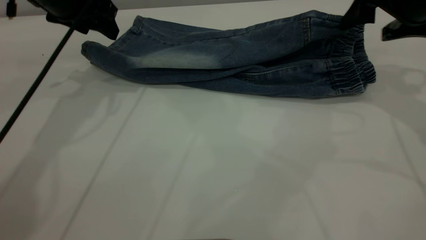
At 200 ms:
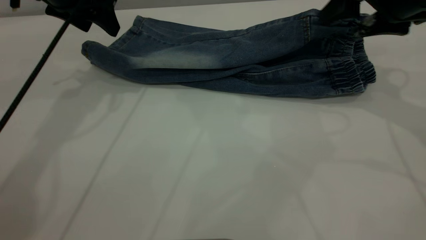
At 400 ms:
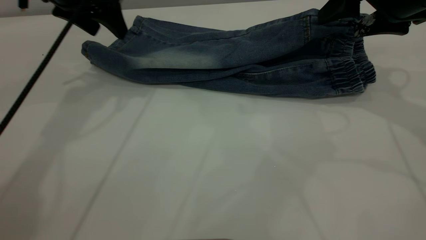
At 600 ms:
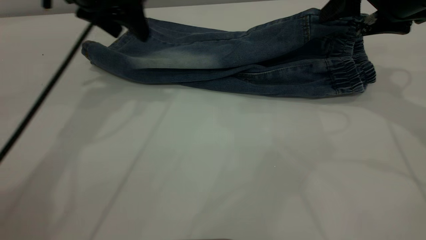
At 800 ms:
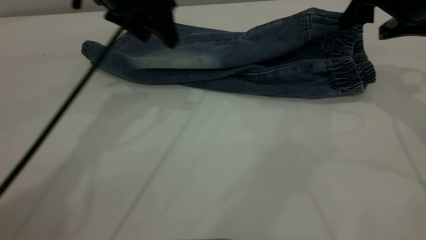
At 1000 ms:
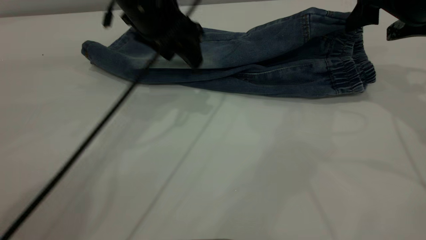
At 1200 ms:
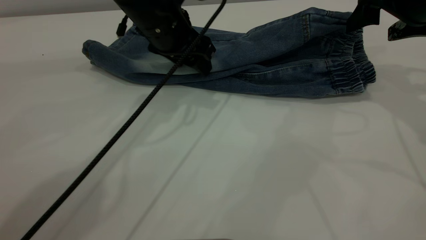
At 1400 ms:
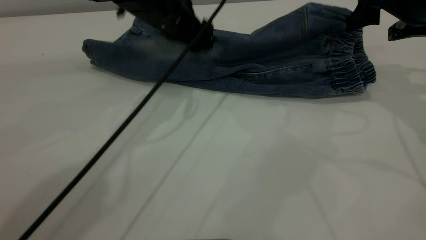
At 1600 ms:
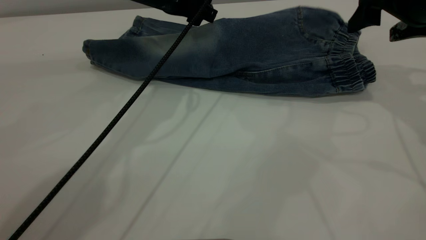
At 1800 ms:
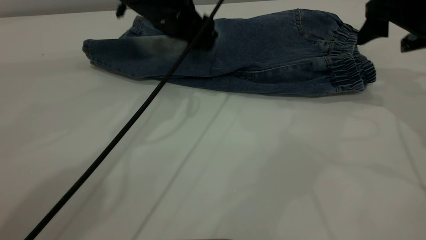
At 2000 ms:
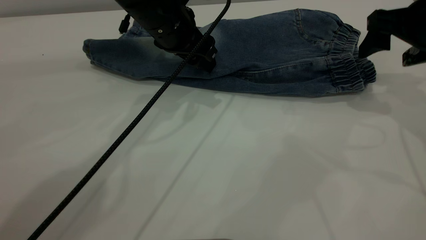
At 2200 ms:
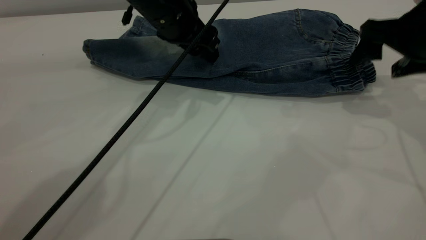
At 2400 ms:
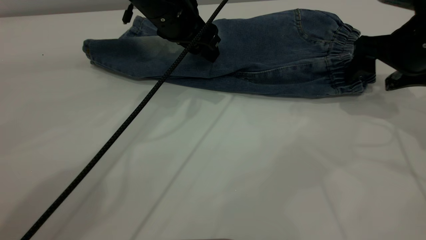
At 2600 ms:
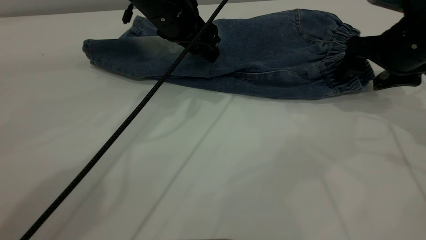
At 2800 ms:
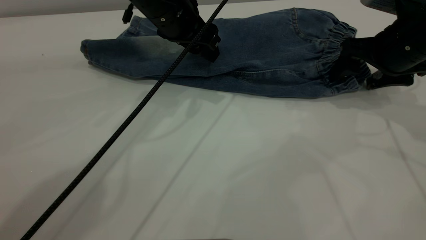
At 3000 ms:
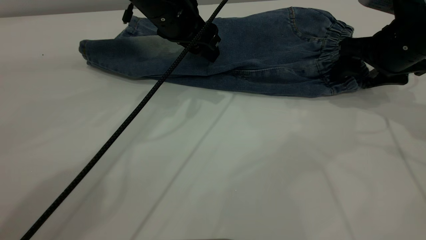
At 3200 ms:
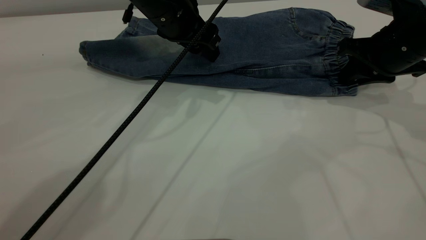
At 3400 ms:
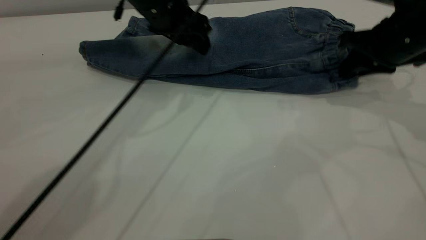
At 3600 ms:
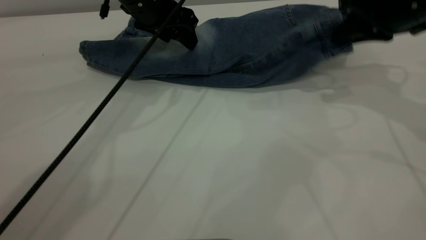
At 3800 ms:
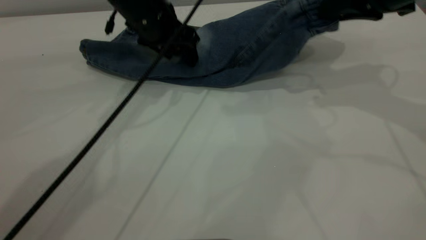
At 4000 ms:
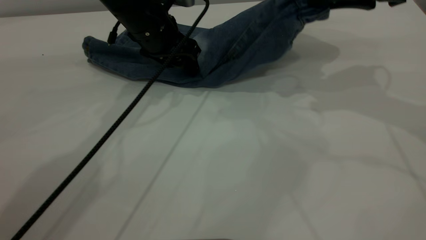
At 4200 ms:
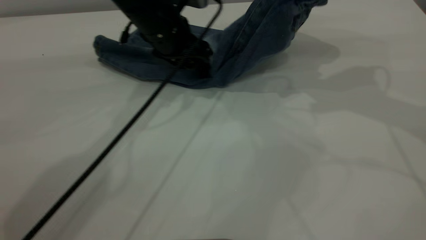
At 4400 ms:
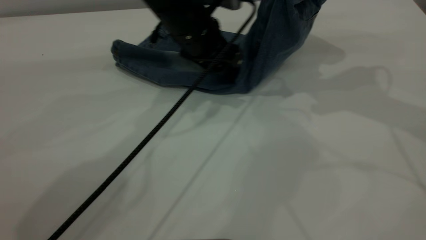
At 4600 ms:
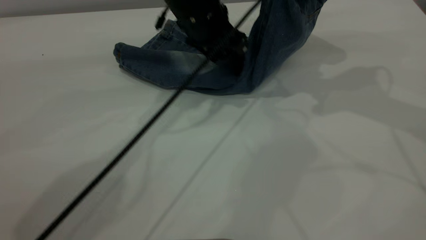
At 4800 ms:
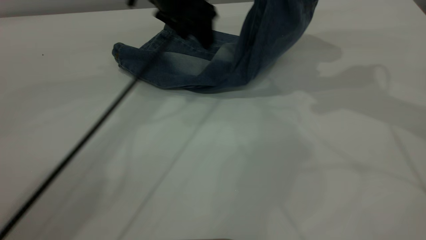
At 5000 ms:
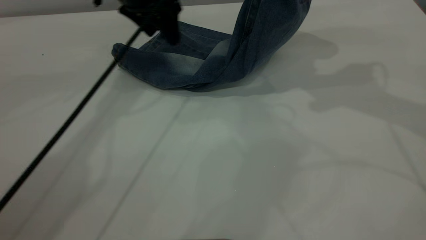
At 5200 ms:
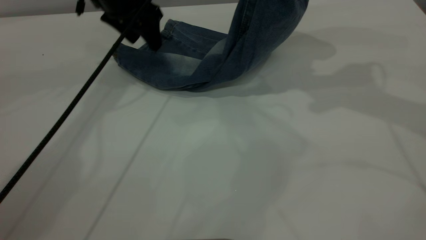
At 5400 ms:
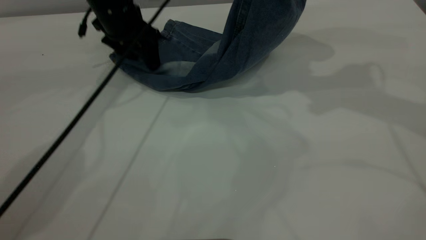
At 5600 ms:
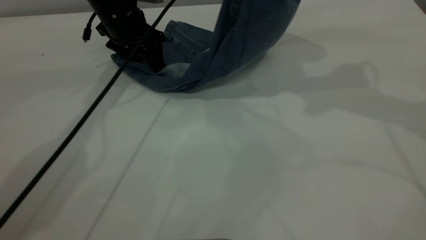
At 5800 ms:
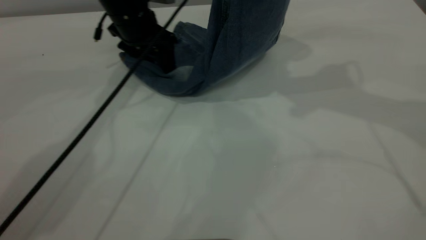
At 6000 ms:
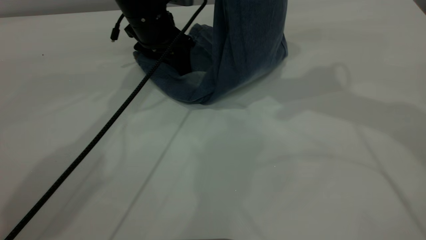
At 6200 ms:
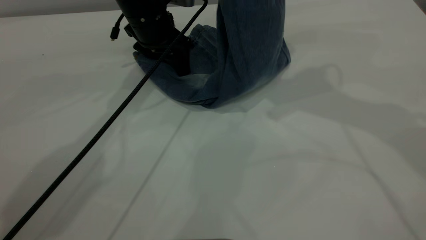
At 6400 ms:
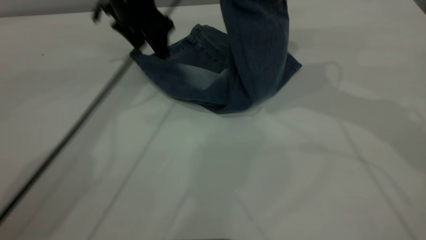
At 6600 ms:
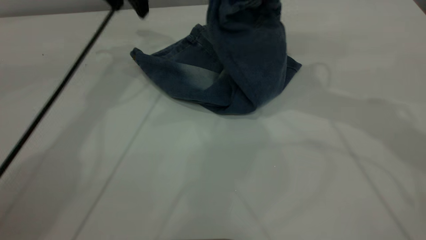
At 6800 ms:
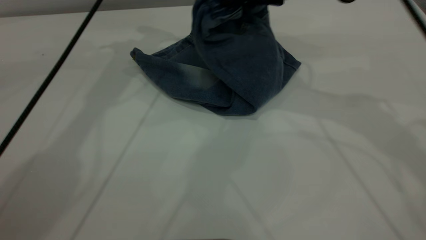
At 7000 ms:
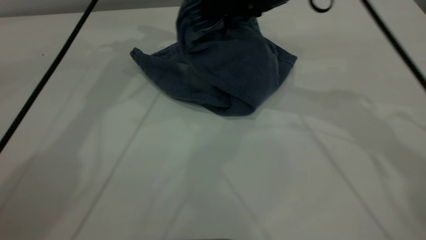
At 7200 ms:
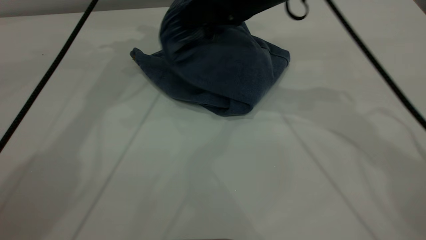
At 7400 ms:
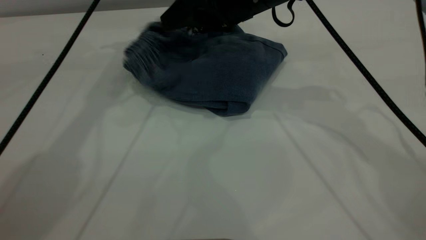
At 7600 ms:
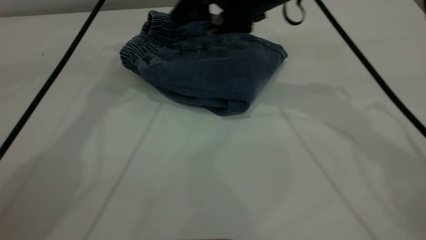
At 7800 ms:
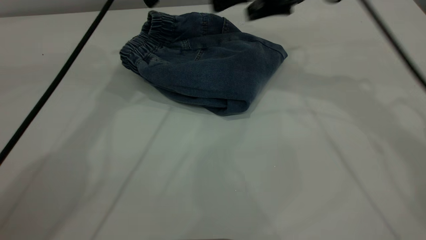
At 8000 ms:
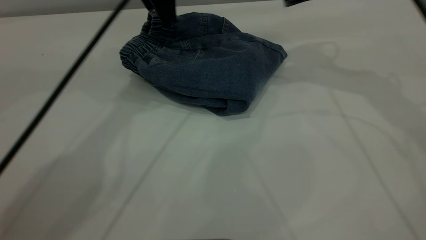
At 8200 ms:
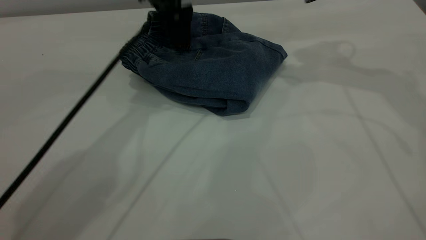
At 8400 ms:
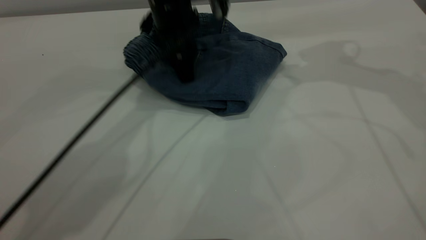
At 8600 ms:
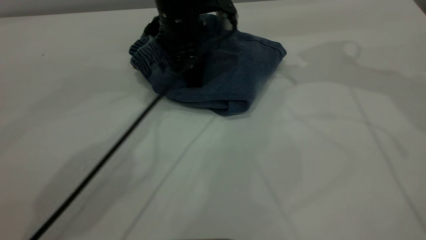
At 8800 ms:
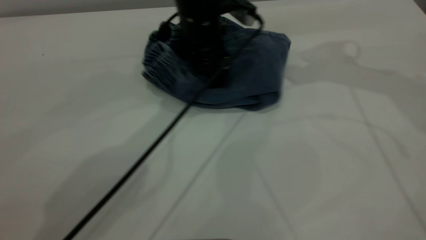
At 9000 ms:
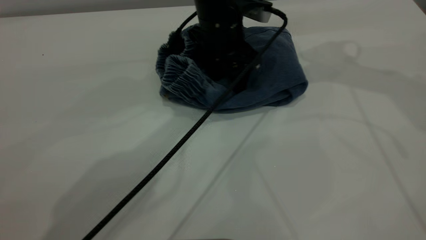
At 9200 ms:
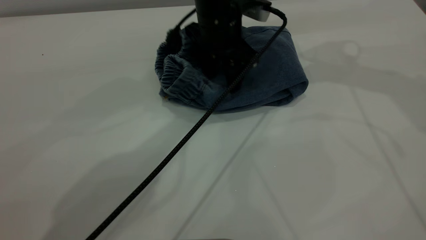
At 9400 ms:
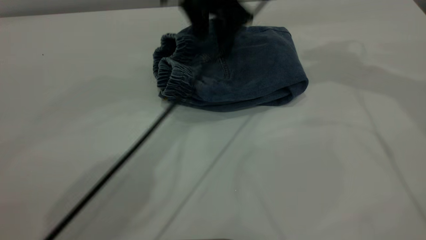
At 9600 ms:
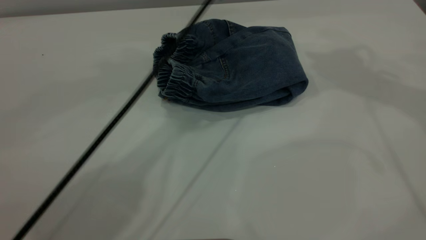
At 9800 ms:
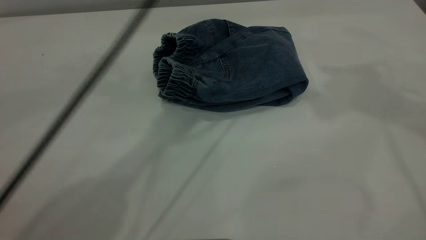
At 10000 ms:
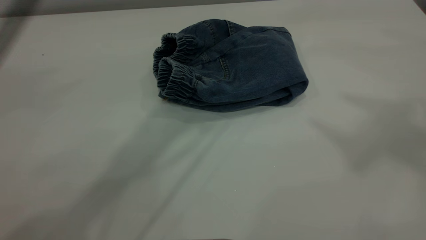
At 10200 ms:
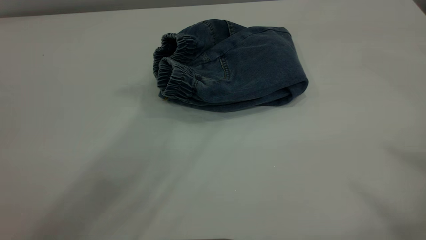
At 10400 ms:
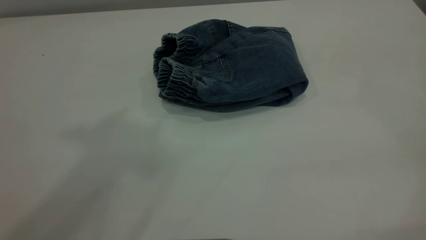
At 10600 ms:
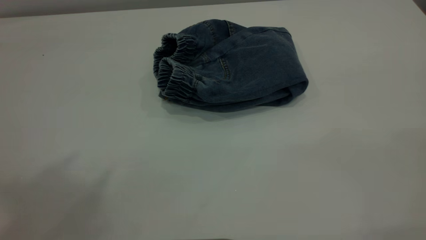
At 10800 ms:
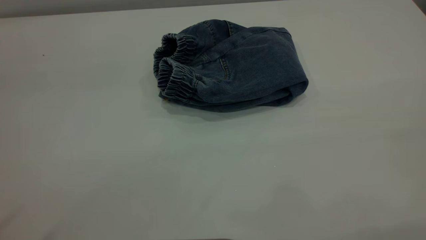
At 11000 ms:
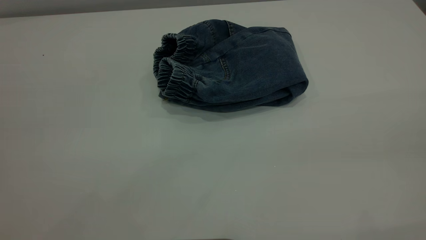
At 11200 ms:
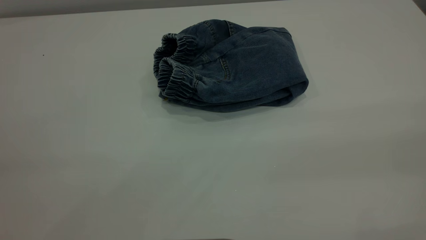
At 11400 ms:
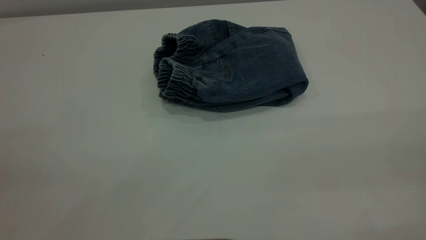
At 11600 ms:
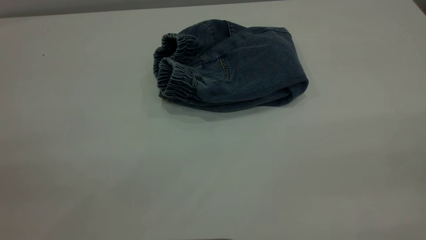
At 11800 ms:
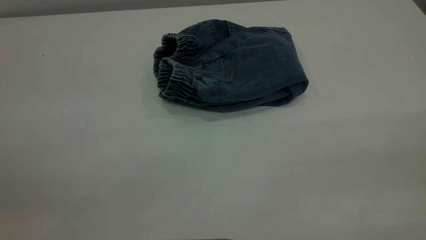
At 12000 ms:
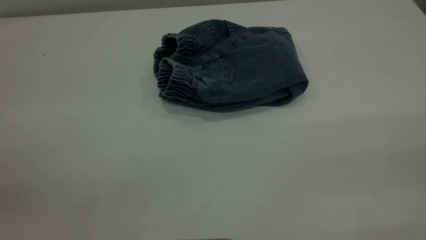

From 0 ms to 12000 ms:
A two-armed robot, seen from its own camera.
Step, from 600 ms to 7600 ms: Fold your pants from right to left.
From 0 ms to 1600 ms: The left gripper goes some 15 cm to the right.
From 1600 ms to 3000 ms: The right gripper goes roughly 5 cm downward.
From 3000 ms to 4400 ms: The right gripper shifts roughly 15 cm upward, and closes.
From 4400 ms to 6000 ms: The left gripper moves to the left, approximately 10 cm. Meanwhile the right gripper moves to the left and upward, some 10 cm.
From 6000 ms to 7600 ms: The right gripper moves downward, to the left and forward, roughly 15 cm, and opens its fingers, while the left gripper heads upward, covering approximately 15 cm.
From 7600 ms to 9000 ms: The right gripper moves to the right and upward, roughly 15 cm. The left gripper goes approximately 20 cm to the right, downward and backward.
From 9000 ms to 10400 ms: The right gripper is displaced backward and upward by approximately 50 cm, while the left gripper shifts approximately 50 cm upward and backward.

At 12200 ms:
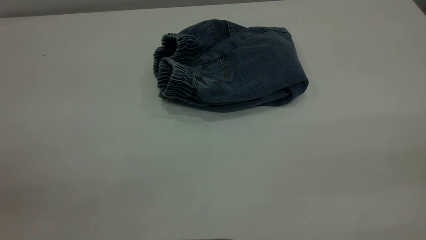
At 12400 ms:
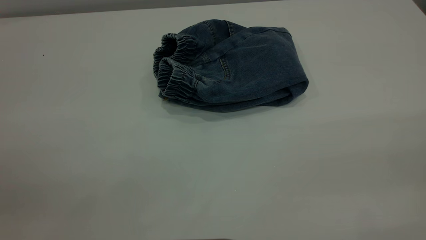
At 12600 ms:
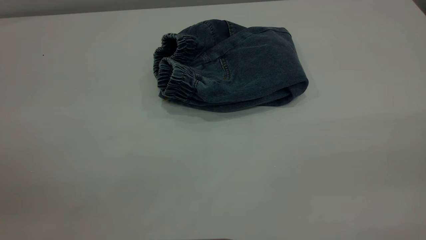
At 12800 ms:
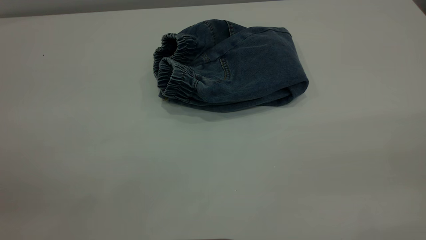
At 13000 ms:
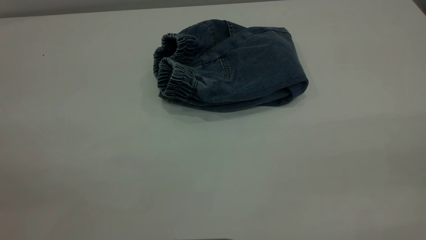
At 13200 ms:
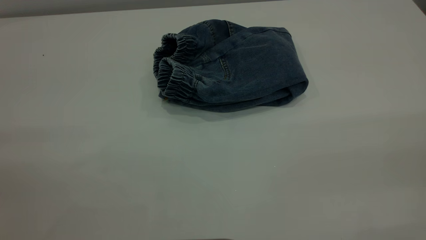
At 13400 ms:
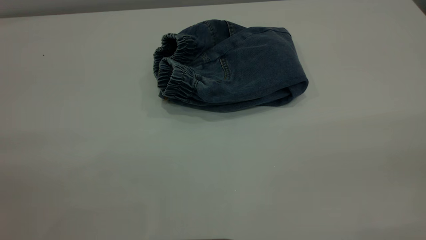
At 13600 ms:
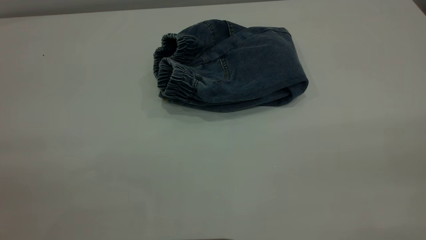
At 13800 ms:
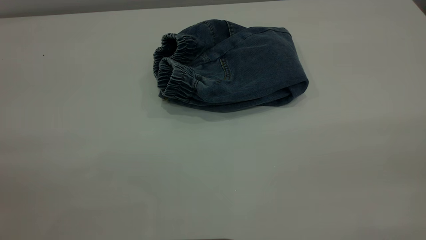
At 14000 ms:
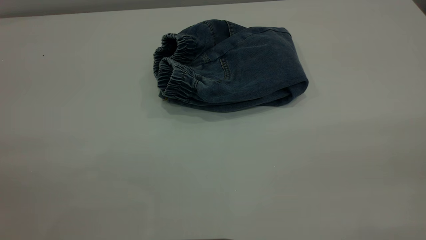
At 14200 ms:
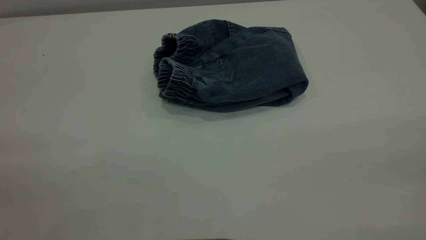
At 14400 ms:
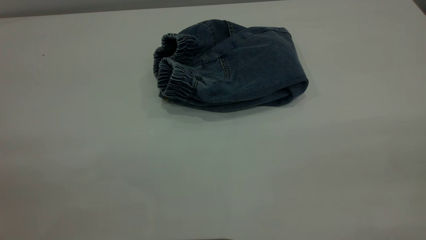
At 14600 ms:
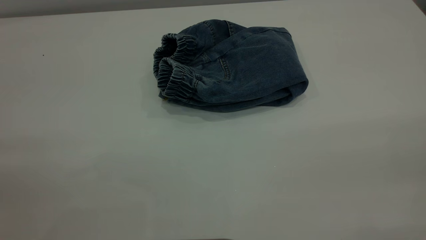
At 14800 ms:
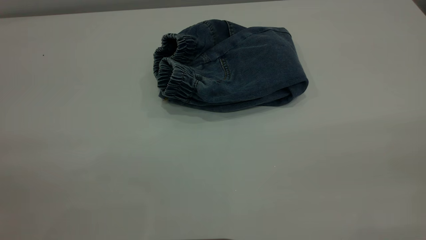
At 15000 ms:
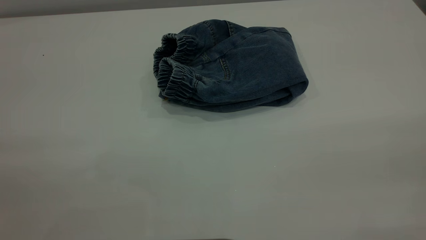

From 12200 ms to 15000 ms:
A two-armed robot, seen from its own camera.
From 13600 ms to 15000 ms: Both grippers stay about where they are.
